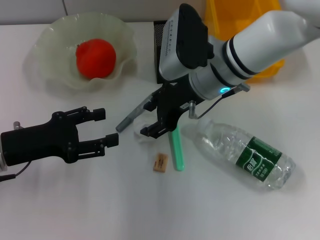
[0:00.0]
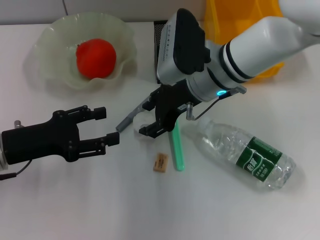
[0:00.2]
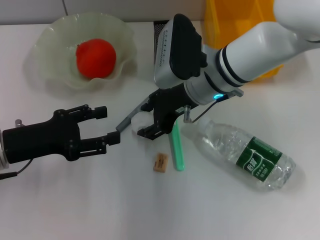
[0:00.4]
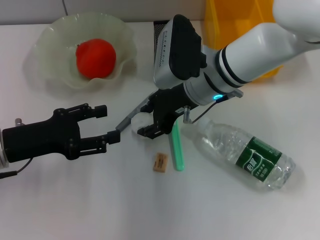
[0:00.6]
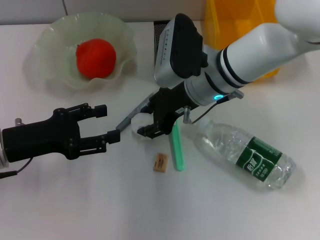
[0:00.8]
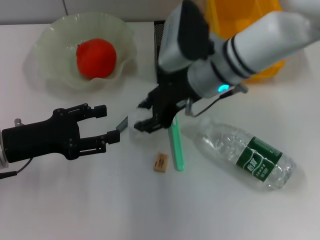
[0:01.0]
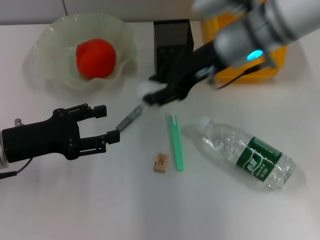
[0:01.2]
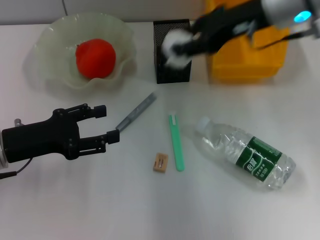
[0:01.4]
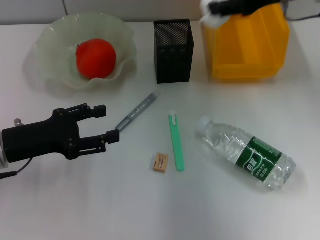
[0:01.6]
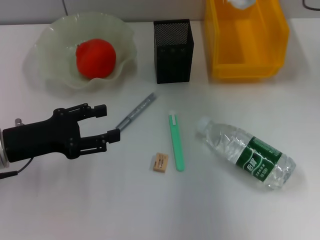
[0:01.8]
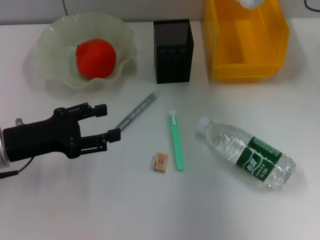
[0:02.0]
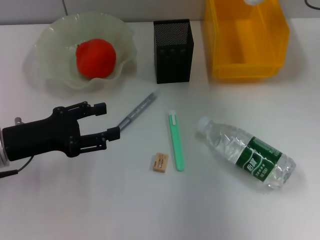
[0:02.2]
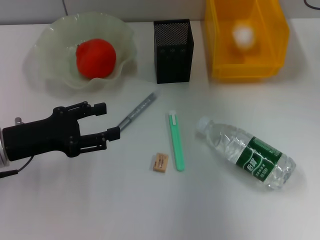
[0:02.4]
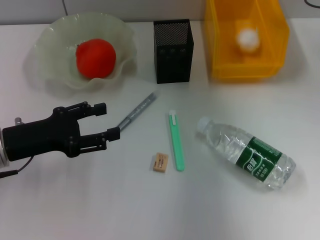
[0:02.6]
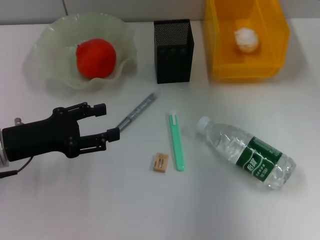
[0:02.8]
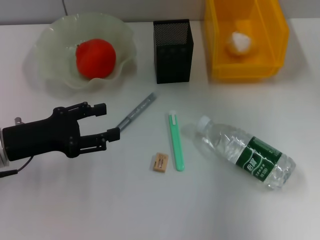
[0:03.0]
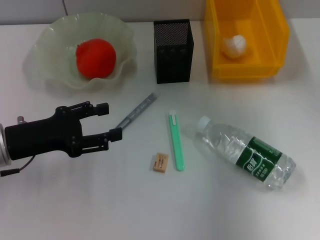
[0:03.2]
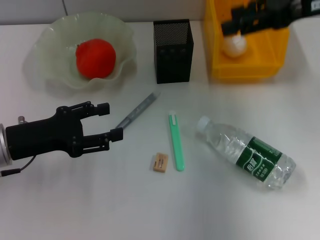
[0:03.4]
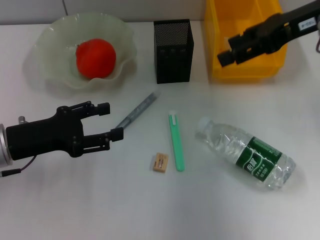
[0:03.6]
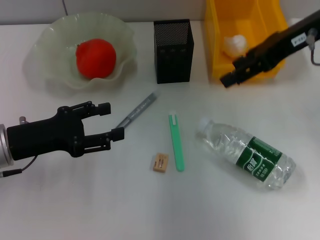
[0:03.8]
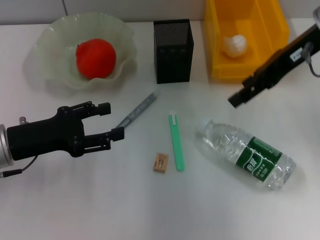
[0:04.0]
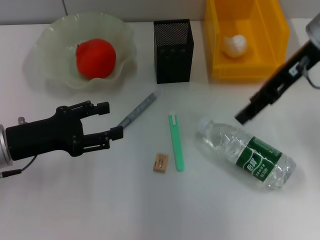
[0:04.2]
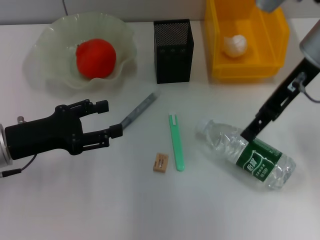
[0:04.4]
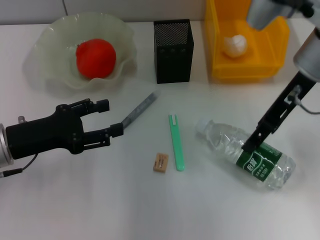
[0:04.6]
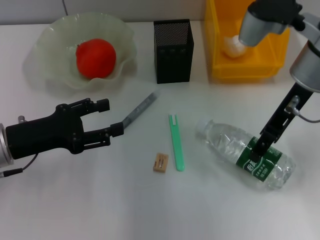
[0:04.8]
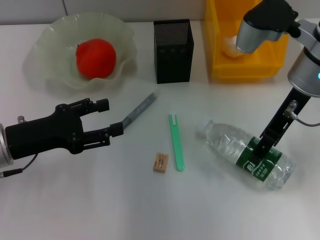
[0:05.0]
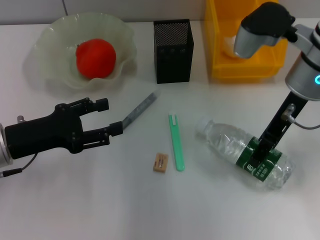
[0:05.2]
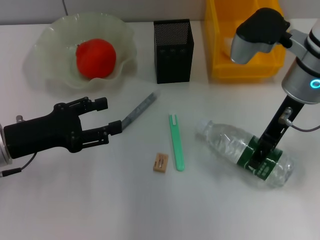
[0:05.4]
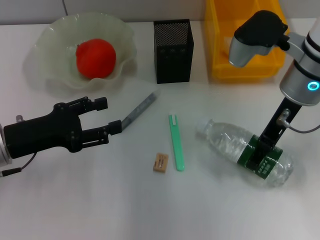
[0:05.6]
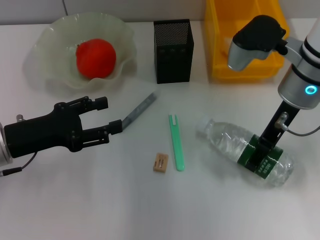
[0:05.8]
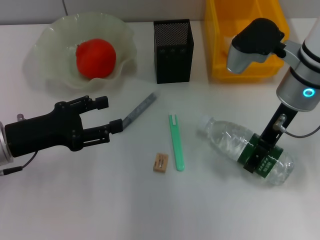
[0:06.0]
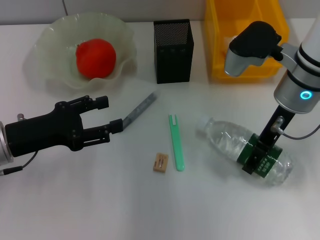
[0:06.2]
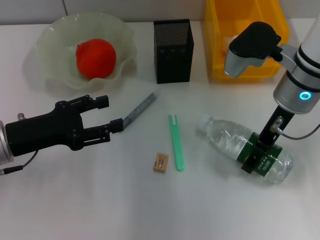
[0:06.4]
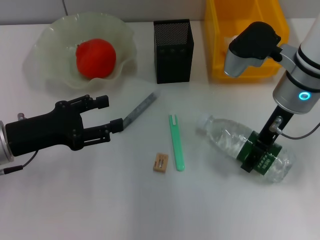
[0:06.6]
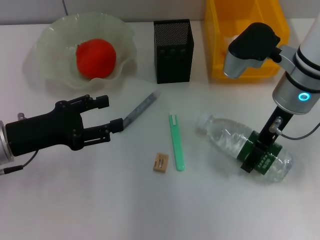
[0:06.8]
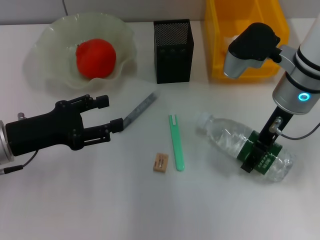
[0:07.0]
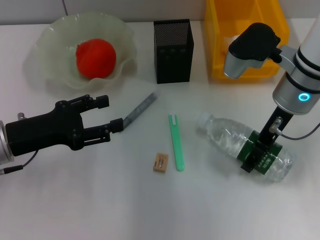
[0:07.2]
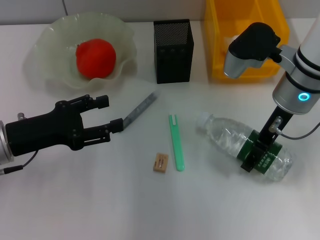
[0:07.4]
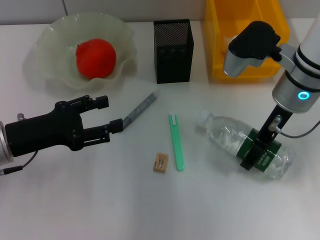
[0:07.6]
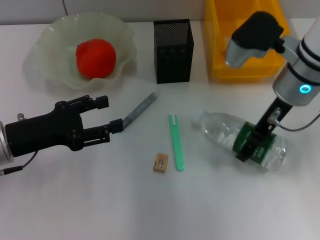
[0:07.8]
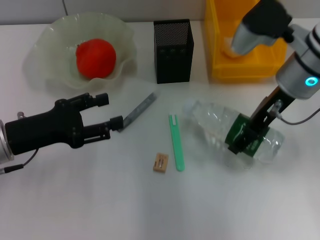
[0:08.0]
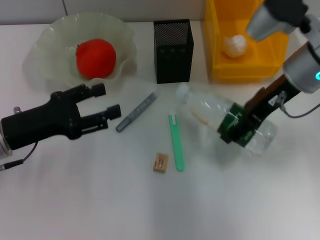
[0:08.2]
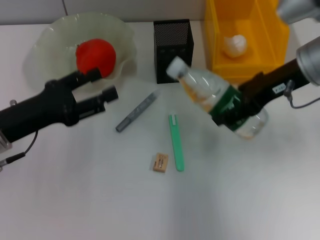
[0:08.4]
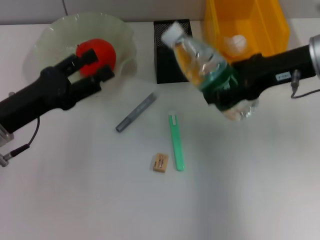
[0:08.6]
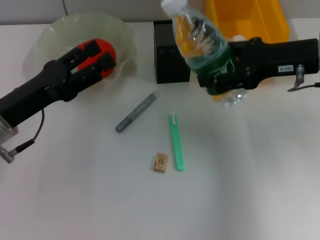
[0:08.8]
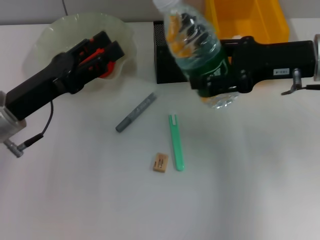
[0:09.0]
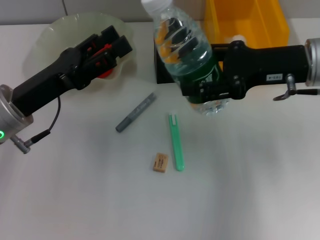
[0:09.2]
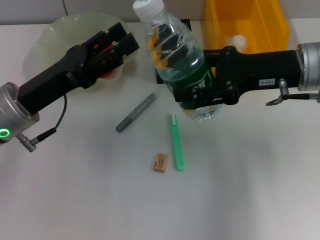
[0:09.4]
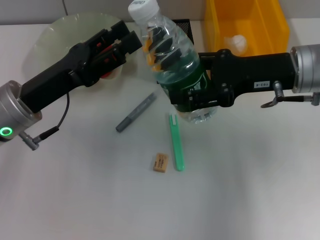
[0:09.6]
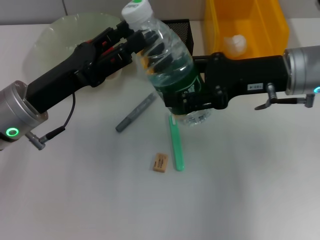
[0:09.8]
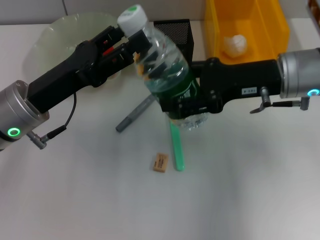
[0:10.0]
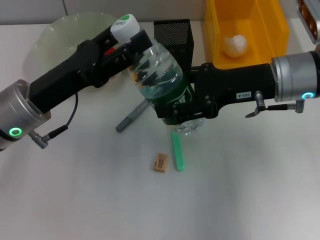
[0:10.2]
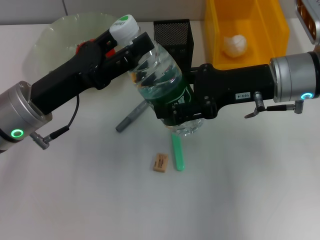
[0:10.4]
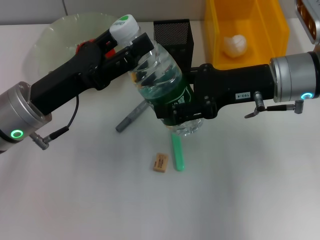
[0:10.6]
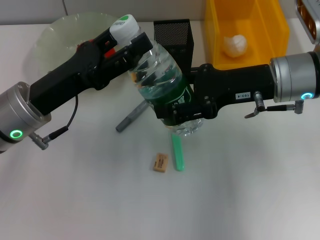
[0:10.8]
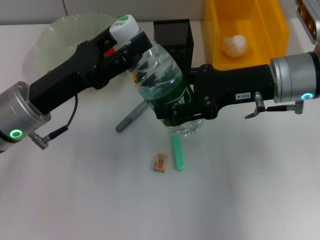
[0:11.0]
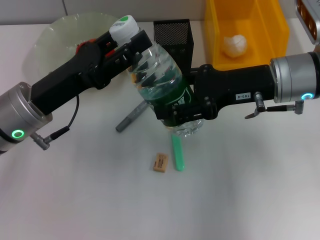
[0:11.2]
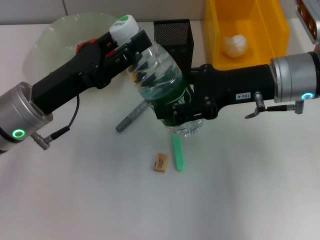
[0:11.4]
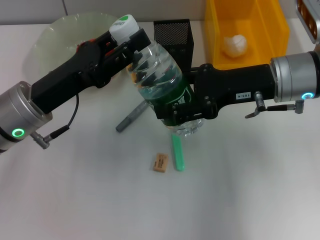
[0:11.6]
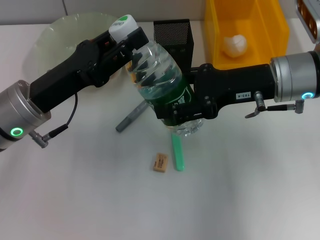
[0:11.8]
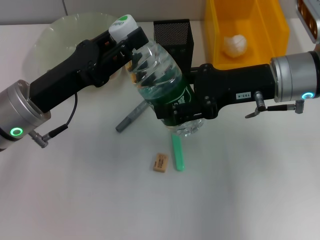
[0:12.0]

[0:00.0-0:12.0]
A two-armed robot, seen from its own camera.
Step, 0:00.6 to 0:03.0: Place the paper ball into the trash can with the right hand.
Step, 0:03.2 to 0:07.2: Grab the water bottle with the right hand.
0:00.0 to 0:01.6: The right gripper moves to the right and upward, approximately 20 cm.
0:01.6 to 0:03.0: The right gripper is displaced to the right by about 5 cm, and opens.
0:03.0 to 0:04.4: The right gripper shifts about 10 cm to the left.
0:04.4 to 0:06.0: The right gripper moves downward, about 5 cm.
0:06.0 to 0:07.6: Both grippers stay put.
0:07.6 to 0:09.0: The right gripper is displaced to the right by some 5 cm.
0:09.0 to 0:10.4: The right gripper moves roughly 5 cm.
0:10.4 to 0:12.0: The left gripper closes up.

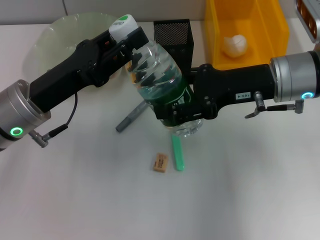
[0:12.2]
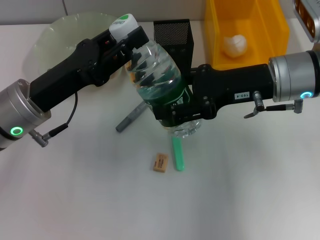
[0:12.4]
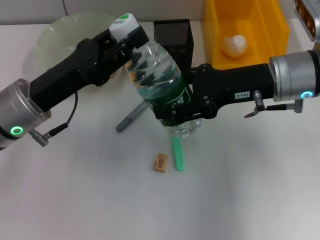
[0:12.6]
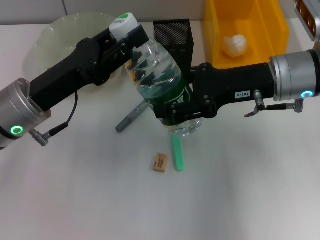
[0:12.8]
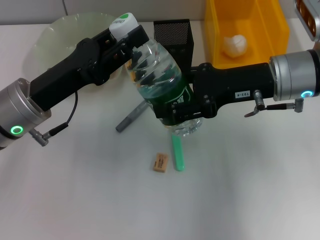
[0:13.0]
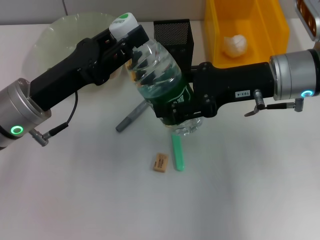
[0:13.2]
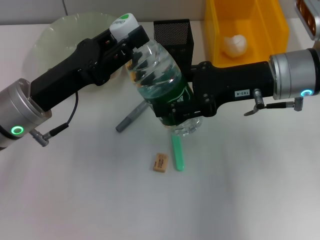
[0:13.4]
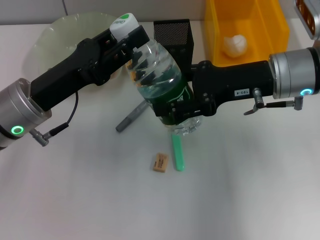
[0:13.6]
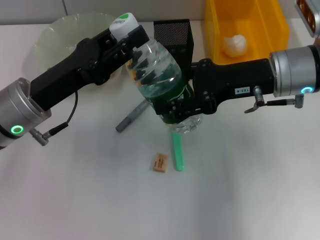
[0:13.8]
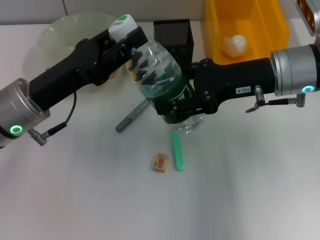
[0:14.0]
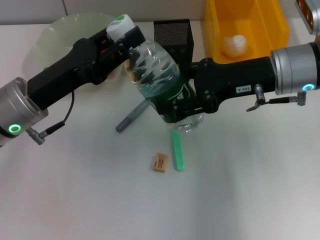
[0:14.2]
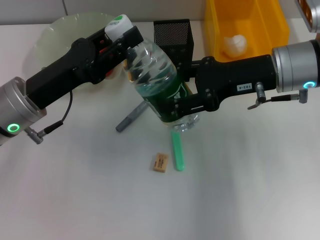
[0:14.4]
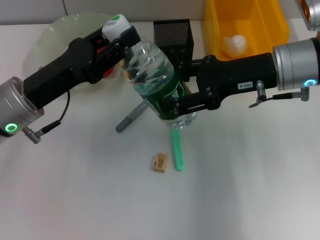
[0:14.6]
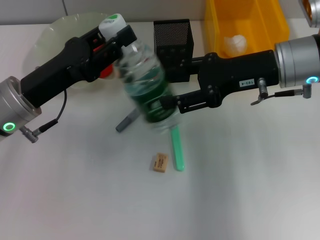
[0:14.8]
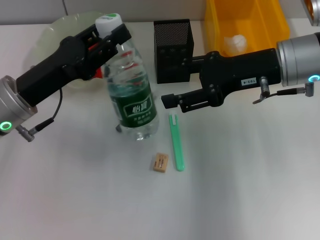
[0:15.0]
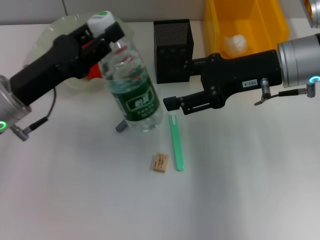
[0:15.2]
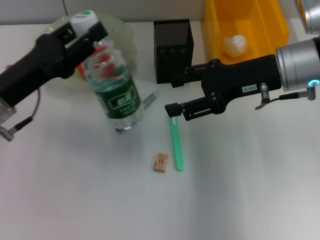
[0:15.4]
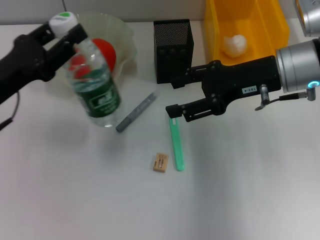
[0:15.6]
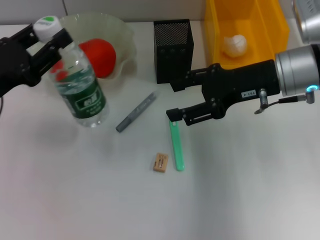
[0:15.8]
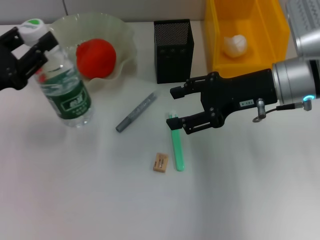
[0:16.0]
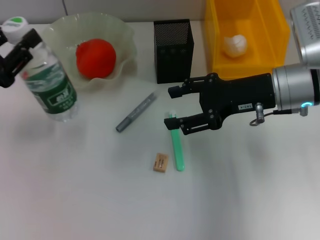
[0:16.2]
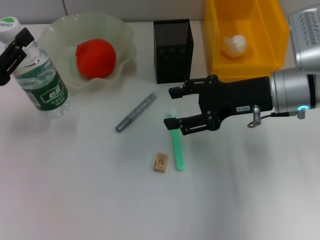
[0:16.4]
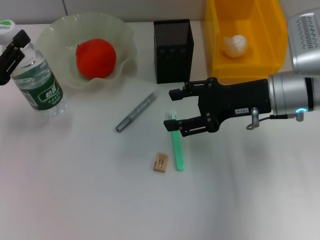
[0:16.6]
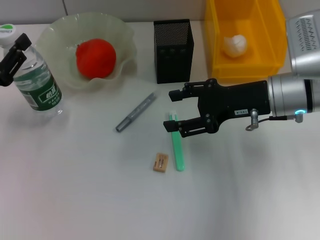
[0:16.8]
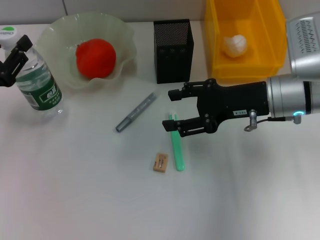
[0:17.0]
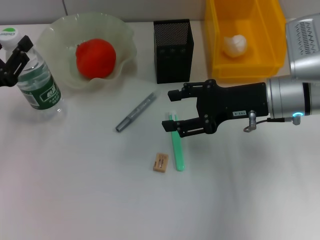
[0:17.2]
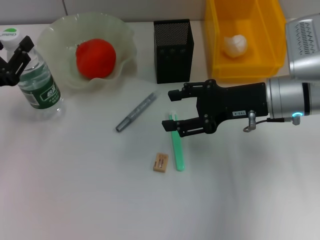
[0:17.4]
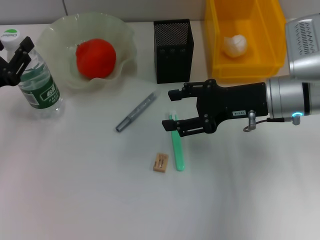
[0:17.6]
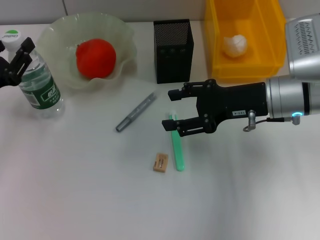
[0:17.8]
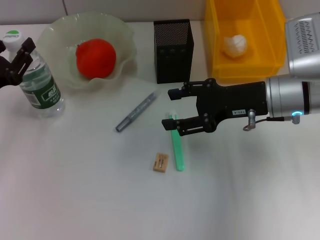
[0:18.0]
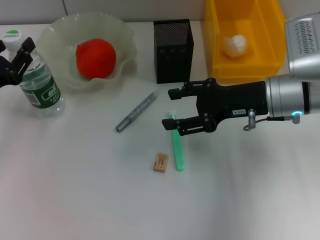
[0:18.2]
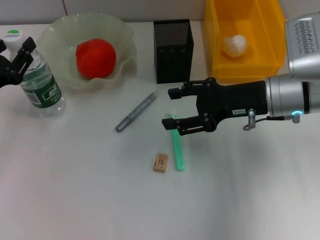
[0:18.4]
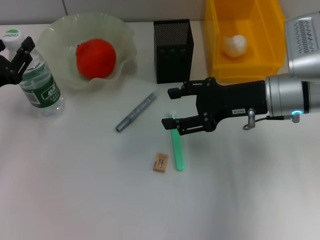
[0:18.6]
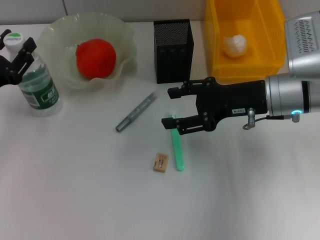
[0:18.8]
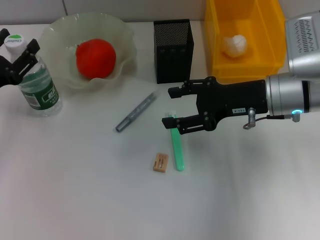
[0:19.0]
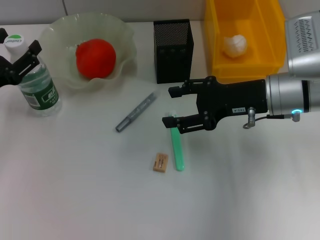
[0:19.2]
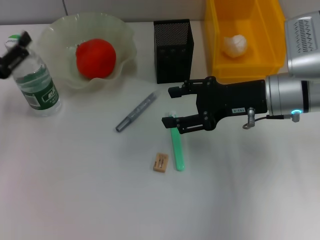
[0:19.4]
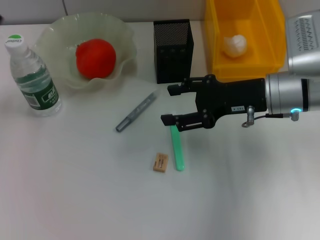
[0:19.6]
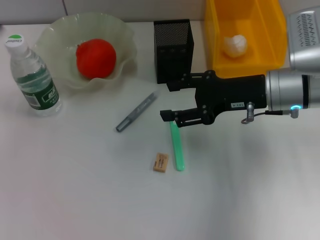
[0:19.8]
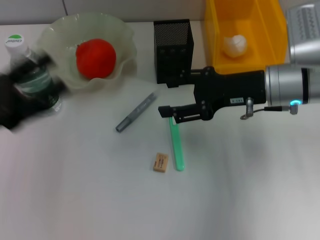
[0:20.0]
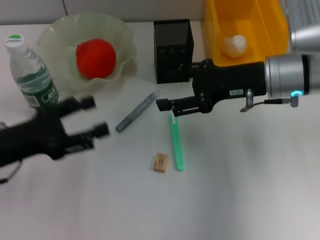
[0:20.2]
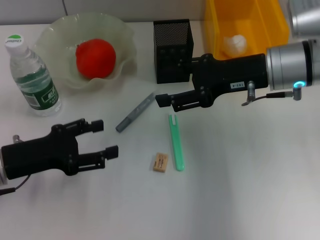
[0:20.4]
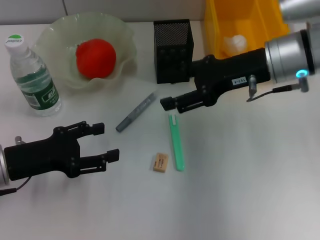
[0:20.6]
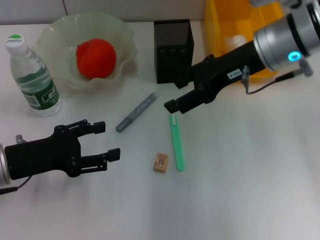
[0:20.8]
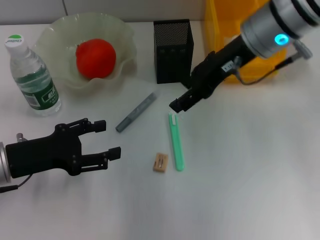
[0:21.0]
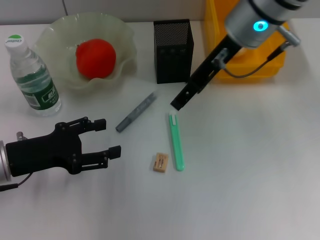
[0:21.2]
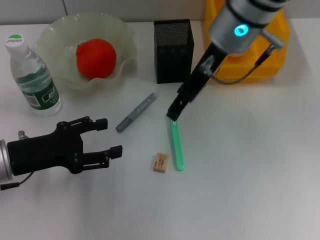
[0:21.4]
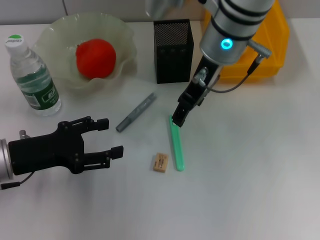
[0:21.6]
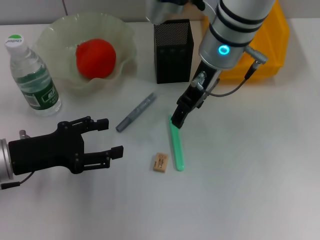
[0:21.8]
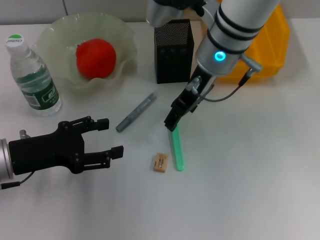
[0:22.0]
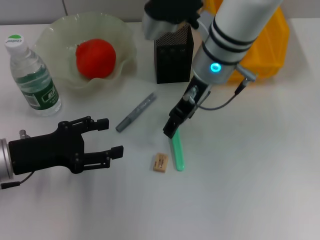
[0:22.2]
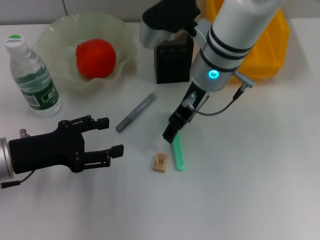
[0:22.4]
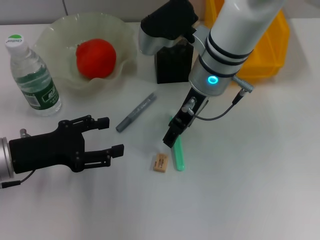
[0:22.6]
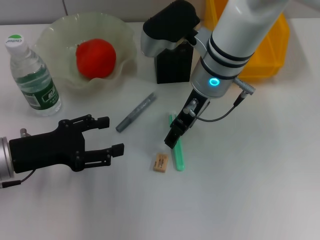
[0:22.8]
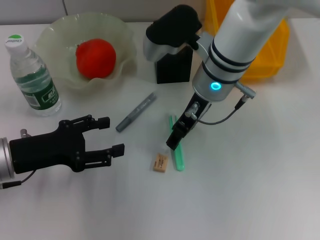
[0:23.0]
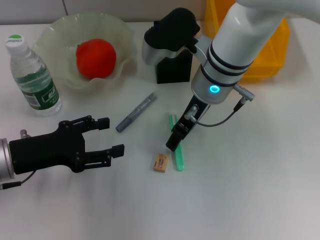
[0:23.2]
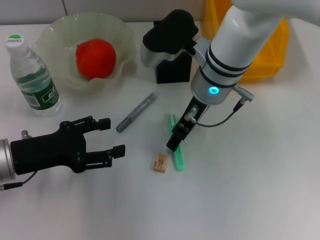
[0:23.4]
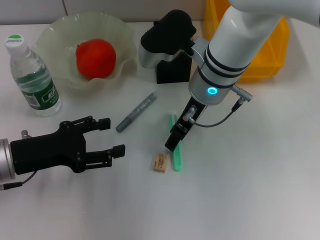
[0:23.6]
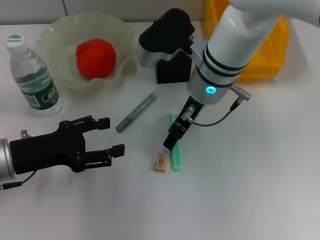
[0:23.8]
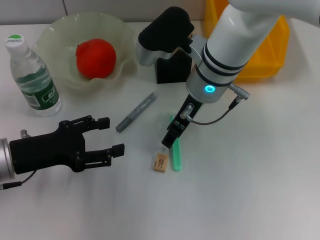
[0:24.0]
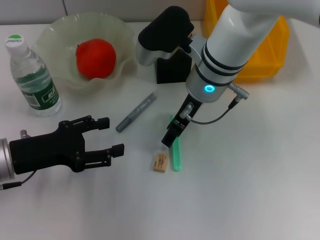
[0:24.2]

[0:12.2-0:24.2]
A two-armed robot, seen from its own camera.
Step, 0:12.2 to 0:14.6: Pass the water bottle from the right hand to the left hand.
Step, 0:14.8 to 0:18.8: Place the water bottle on the table with the left hand.
0:12.2 to 0:13.8: Both grippers stay about where they are.
0:15.2 to 0:16.6: The left gripper travels to the left by roughly 10 cm.
0:16.6 to 0:18.2: There are only small adjustments of the grippers.
0:18.2 to 0:19.8: The left gripper heads upward, covering roughly 5 cm, and opens.
0:19.8 to 0:21.2: The left gripper shifts approximately 10 cm to the right and downward. Meanwhile the right gripper moves upward and to the left, about 15 cm.
0:21.2 to 0:22.6: The right gripper heads downward, covering about 5 cm.
0:22.6 to 0:24.2: There are only small adjustments of the grippers.
